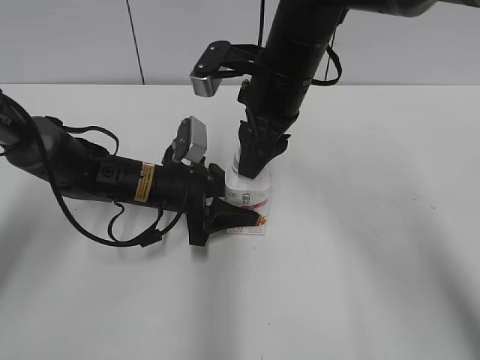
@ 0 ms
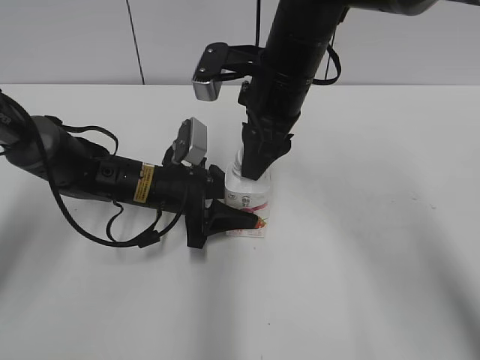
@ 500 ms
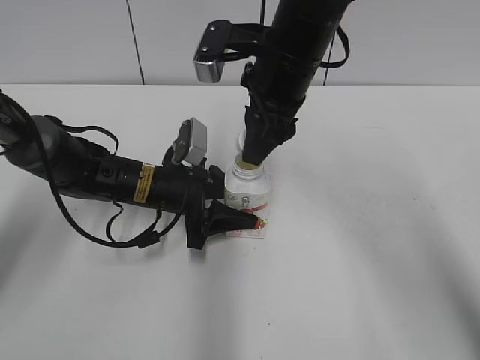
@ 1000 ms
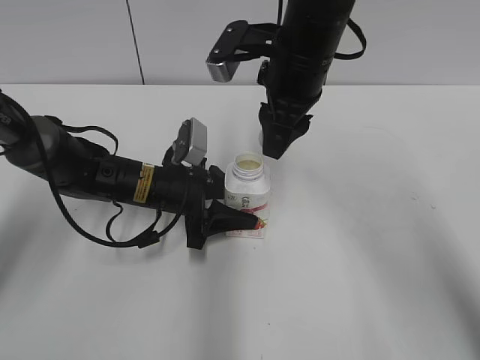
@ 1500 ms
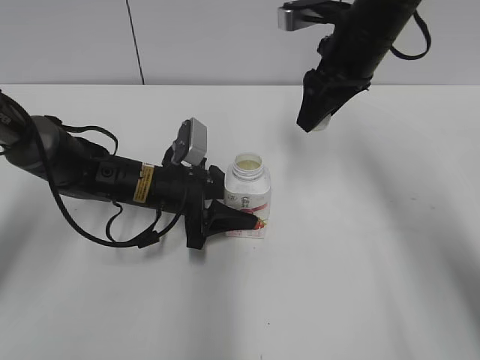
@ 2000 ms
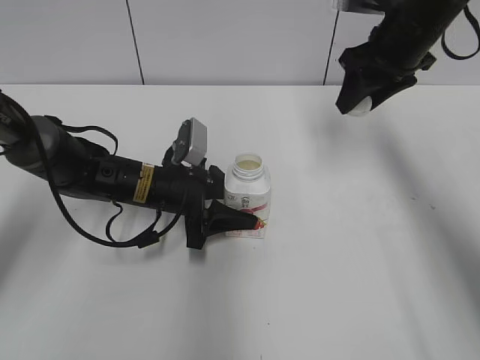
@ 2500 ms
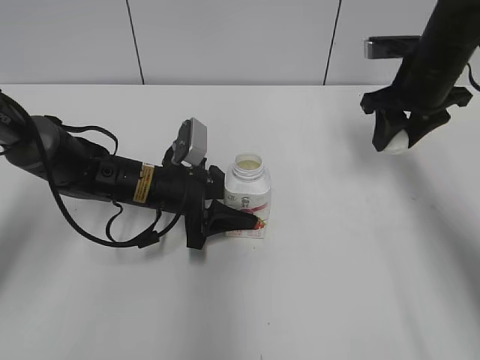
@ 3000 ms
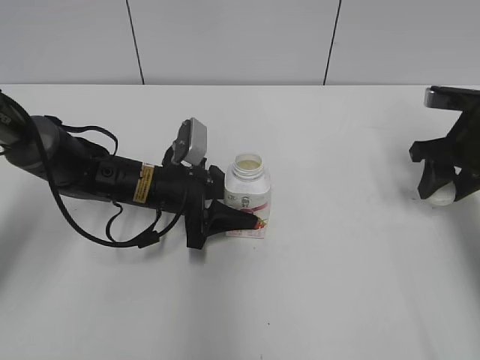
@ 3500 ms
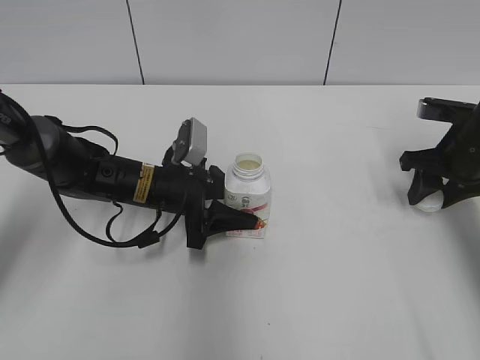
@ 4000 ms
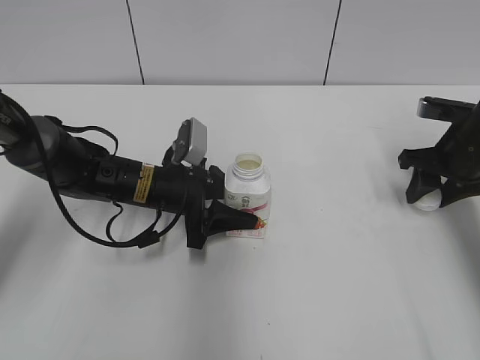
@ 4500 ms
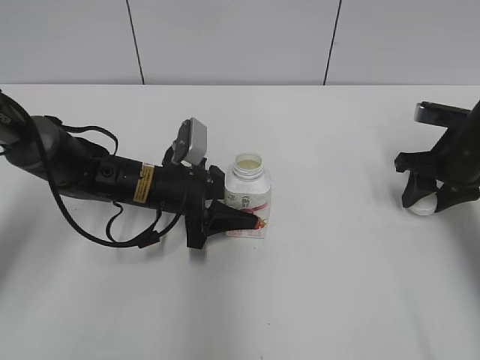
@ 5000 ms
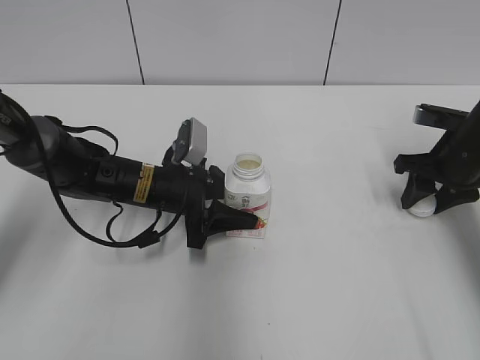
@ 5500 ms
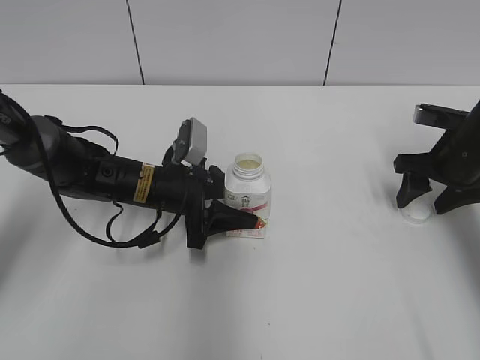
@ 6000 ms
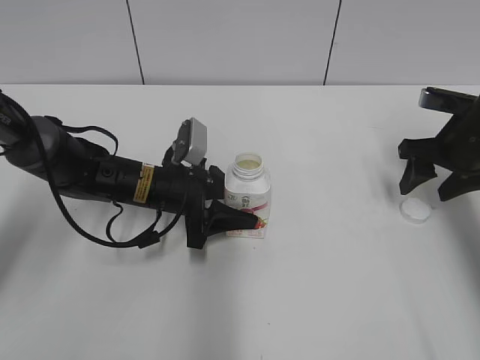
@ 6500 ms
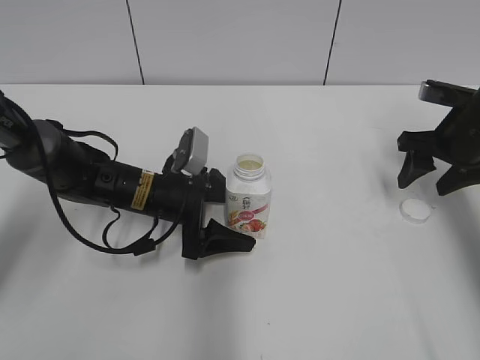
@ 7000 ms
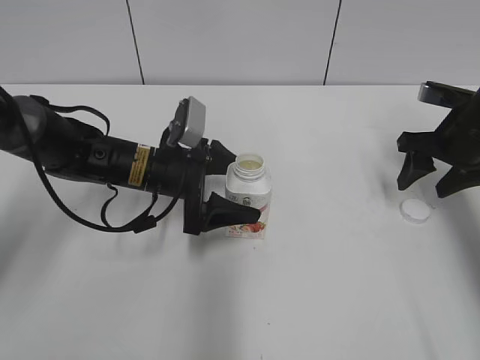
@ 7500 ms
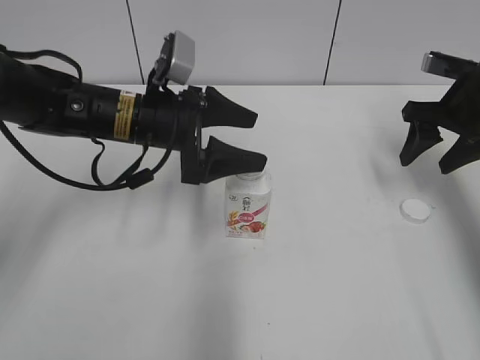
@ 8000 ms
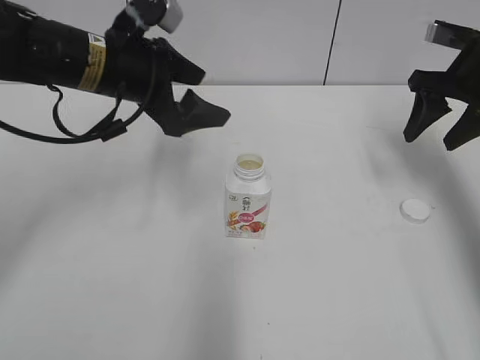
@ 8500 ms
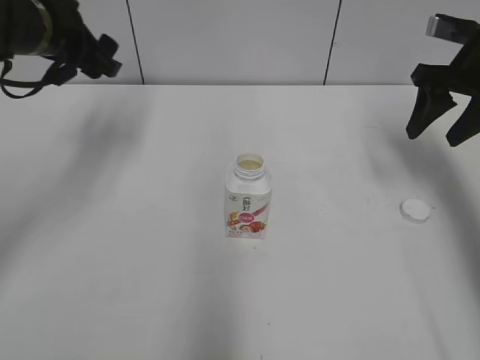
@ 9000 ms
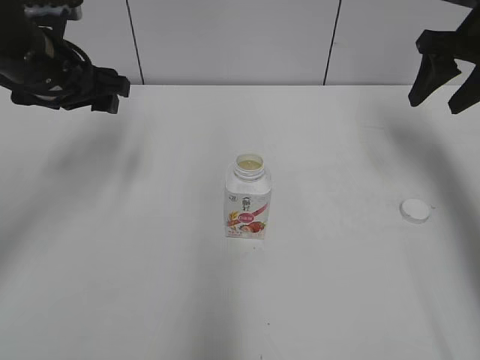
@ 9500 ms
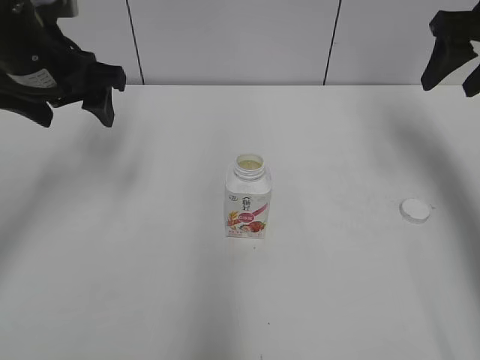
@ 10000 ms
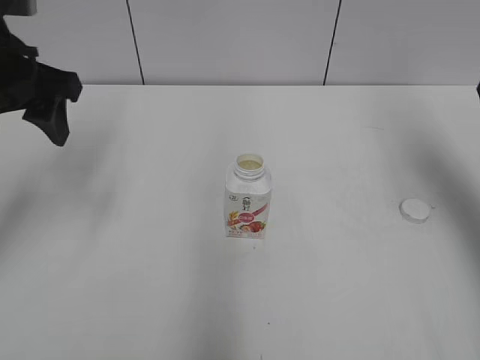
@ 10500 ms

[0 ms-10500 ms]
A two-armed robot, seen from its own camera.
Step, 1000 ms to 5500 ms: Place the bottle cap on the right.
0 ms to 2000 ms: The right gripper goes approximately 10 cm to the right.
2000 ms to 4000 ms: The right gripper shifts approximately 20 cm to the right and downward.
4000 ms to 6500 ms: The right gripper opens up.
6500 ms to 8500 ms: The right gripper is displaced upward by approximately 10 cm; the left gripper goes some 20 cm upward, and opens up.
8500 ms to 10500 ms: The right gripper shifts about 15 cm upward and backward. The left gripper heads to the left, upward and backward, covering about 15 cm.

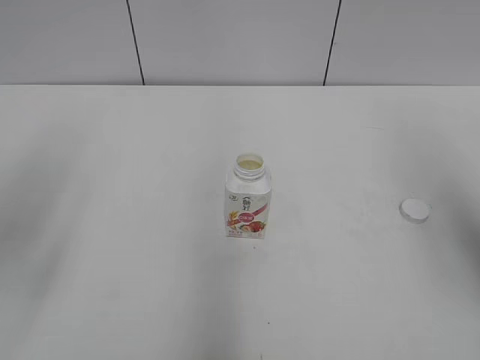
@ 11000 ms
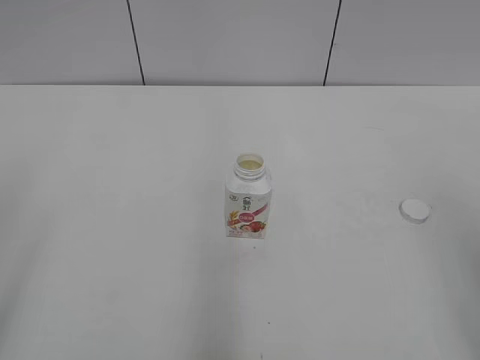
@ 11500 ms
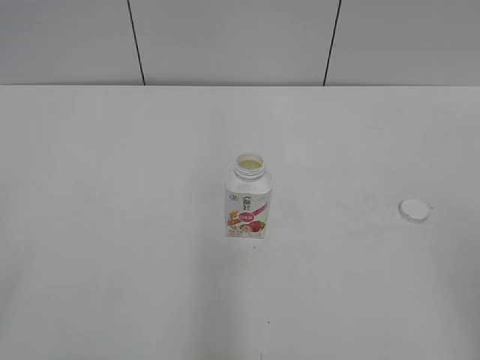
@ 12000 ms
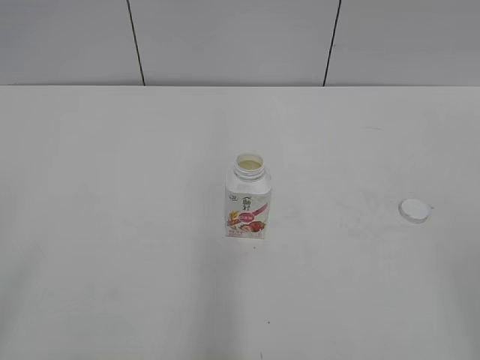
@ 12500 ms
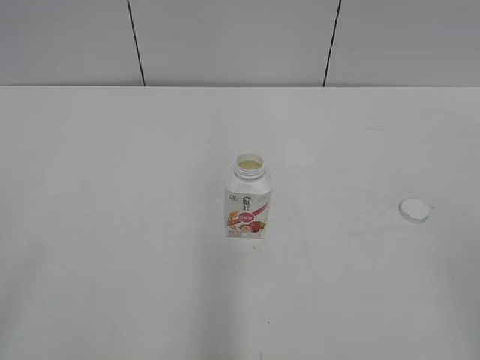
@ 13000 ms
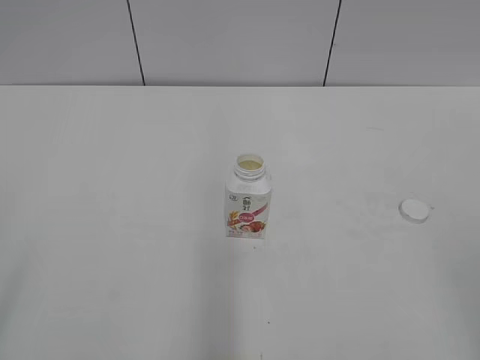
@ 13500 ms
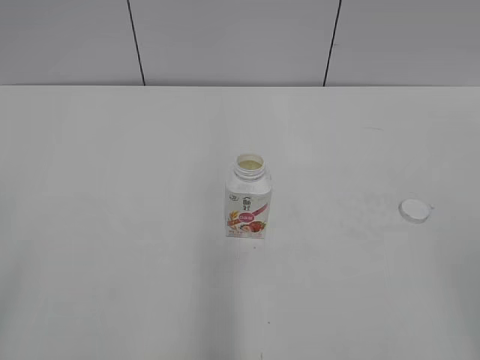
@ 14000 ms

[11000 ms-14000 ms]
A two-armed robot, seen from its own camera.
11000 ms to 12500 ms: The right gripper heads backward, covering approximately 20 cm.
